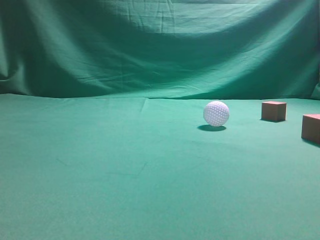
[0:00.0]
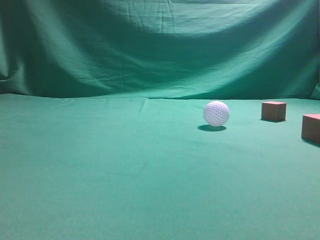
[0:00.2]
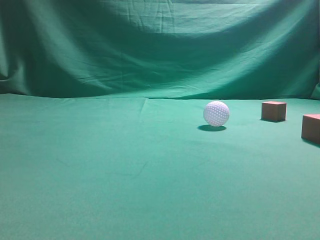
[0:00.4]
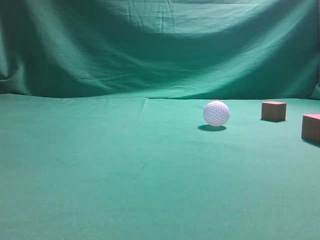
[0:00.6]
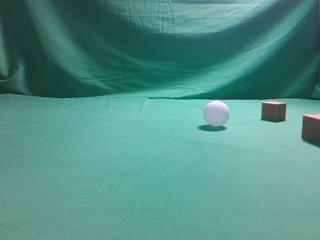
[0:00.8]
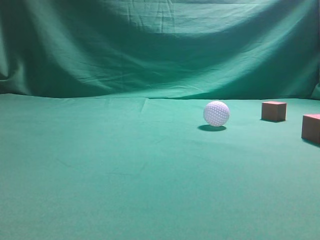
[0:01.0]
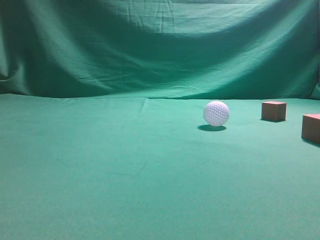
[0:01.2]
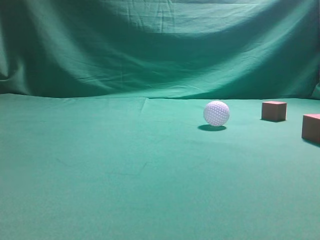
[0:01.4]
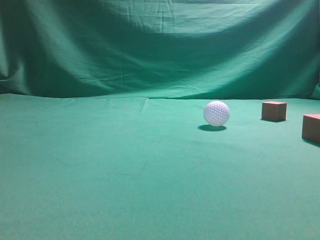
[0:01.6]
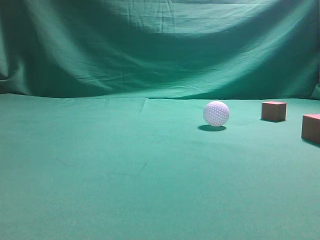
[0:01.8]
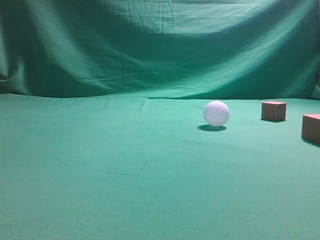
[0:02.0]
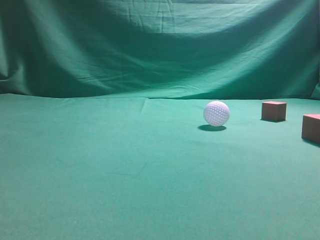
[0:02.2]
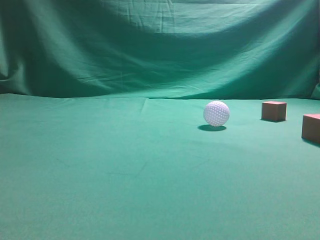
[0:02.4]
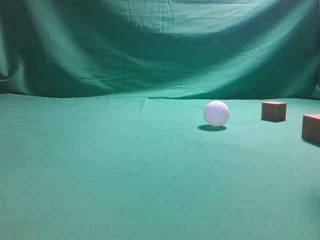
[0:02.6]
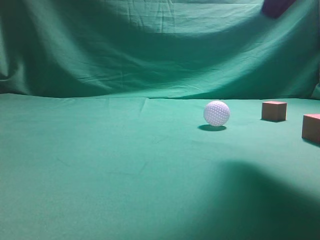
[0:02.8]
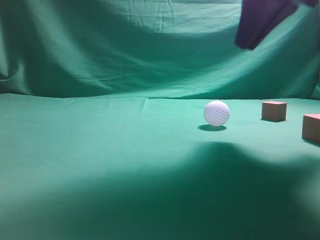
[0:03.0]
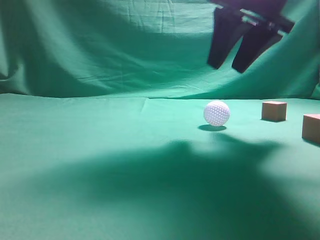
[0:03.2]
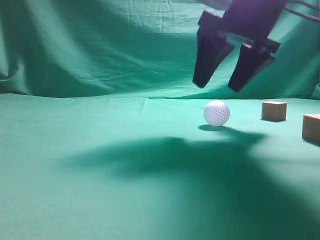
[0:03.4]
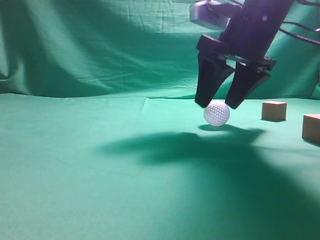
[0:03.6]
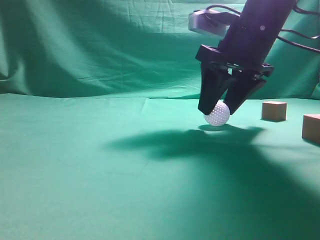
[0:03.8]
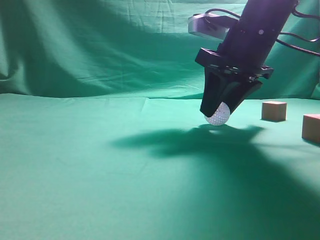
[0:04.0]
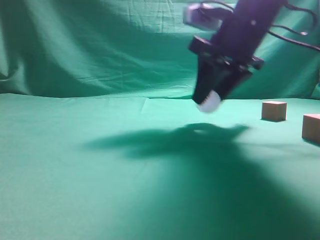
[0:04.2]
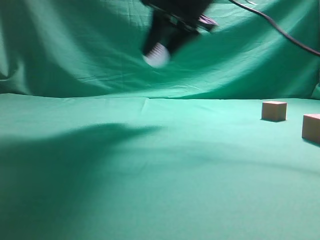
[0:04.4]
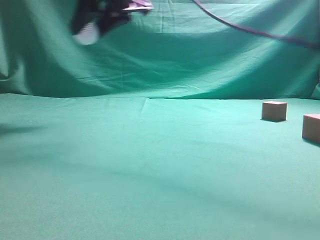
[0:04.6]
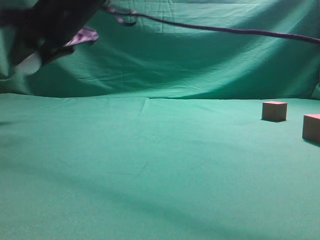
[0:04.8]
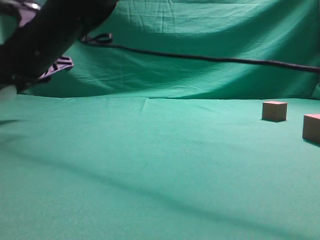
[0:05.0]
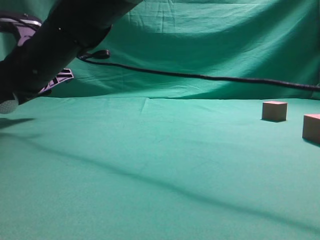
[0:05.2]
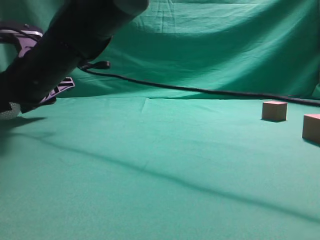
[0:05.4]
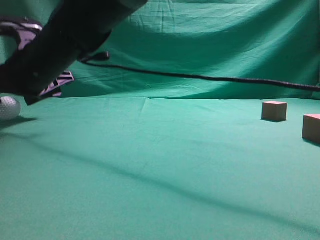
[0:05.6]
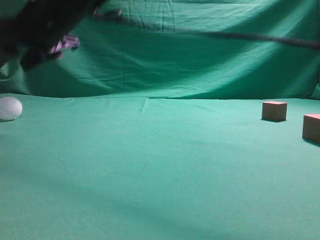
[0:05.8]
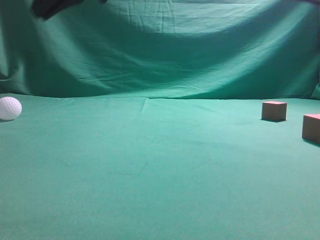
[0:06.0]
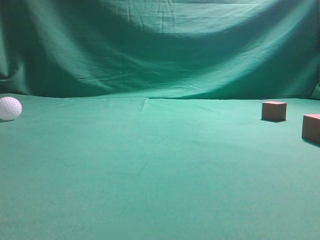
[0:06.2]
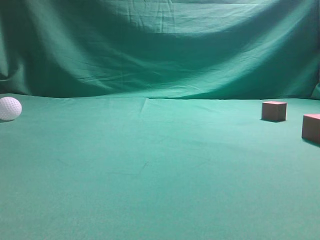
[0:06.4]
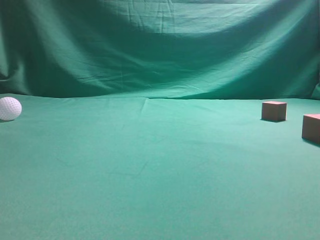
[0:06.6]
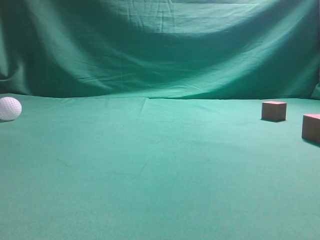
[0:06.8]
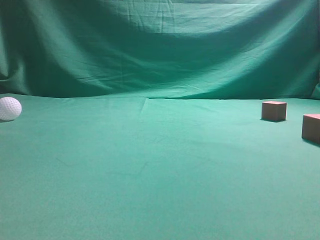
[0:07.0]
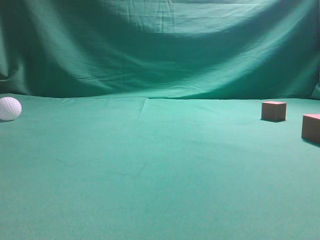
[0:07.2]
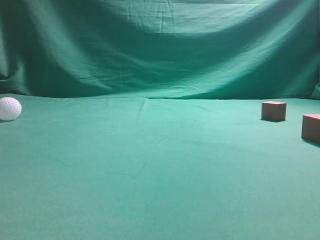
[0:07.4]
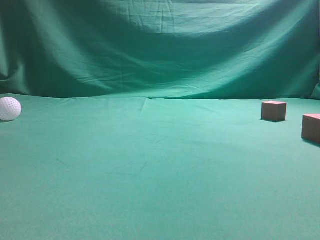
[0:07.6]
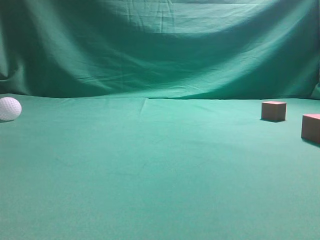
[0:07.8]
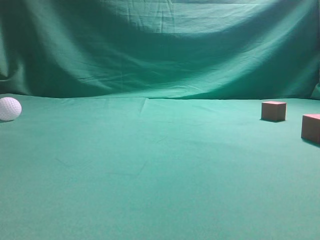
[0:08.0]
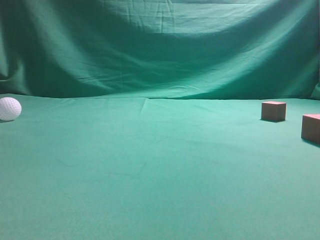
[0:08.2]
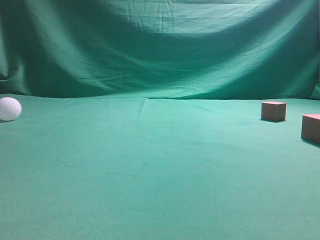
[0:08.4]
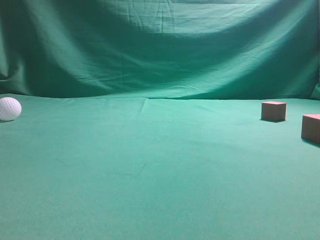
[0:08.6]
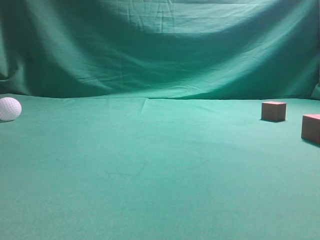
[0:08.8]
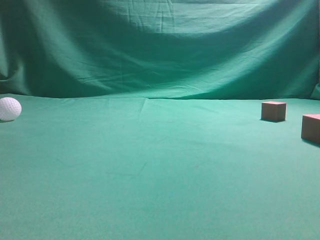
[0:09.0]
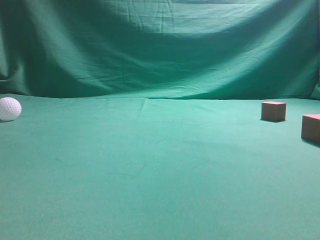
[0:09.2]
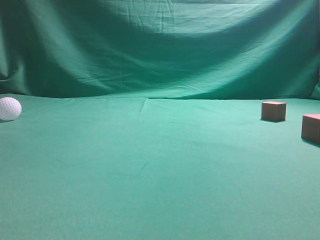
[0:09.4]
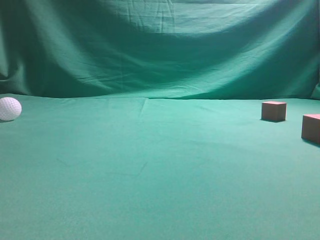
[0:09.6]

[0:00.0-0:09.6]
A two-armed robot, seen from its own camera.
Step, 0:00.0 to 0:04.2: Grasp the spherical object on the right side.
0:01.6 to 0:03.2: The right gripper heads forward and to the left, covering about 30 cm, and opens.
0:03.2 to 0:04.8: The right gripper moves to the left, approximately 25 cm.
0:04.8 to 0:06.4: The right gripper heads upward and to the right, covering roughly 30 cm, and closes.
